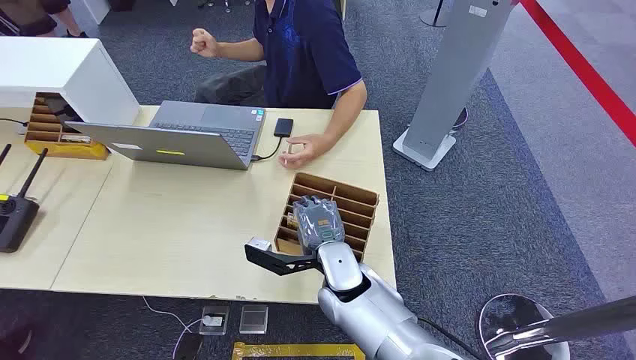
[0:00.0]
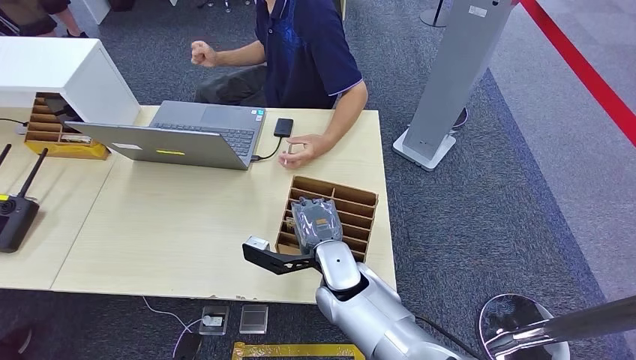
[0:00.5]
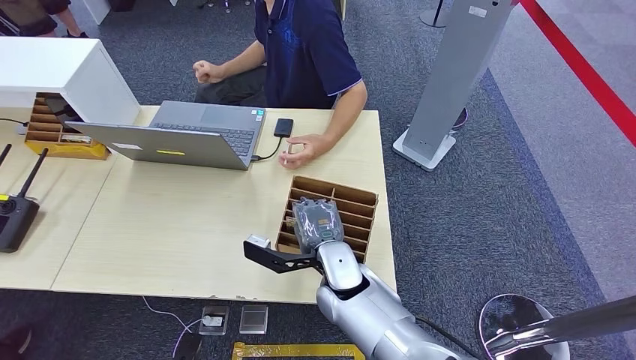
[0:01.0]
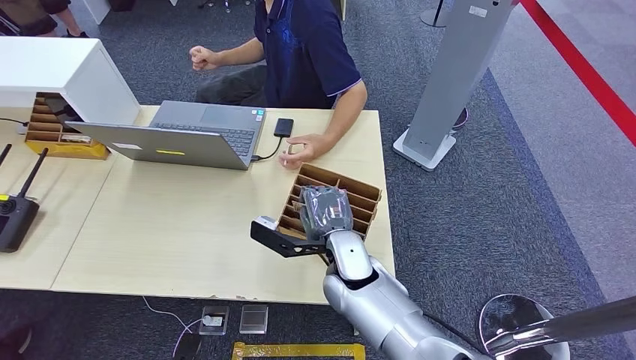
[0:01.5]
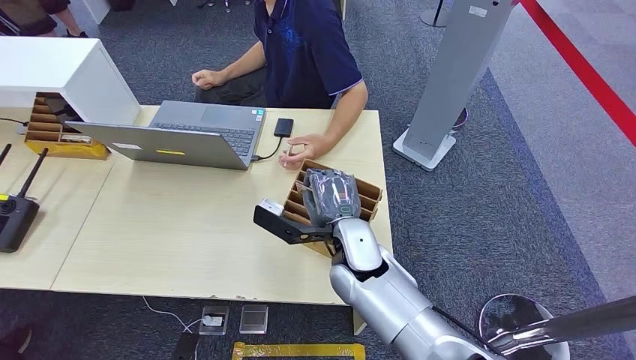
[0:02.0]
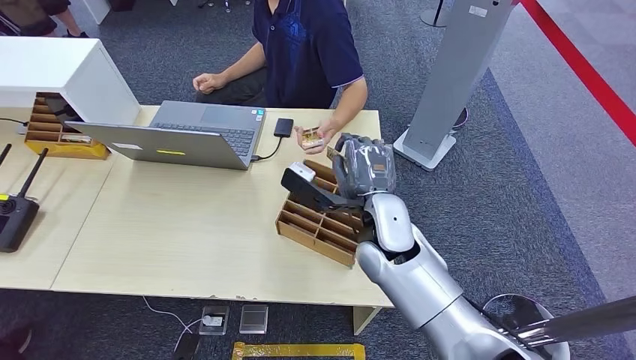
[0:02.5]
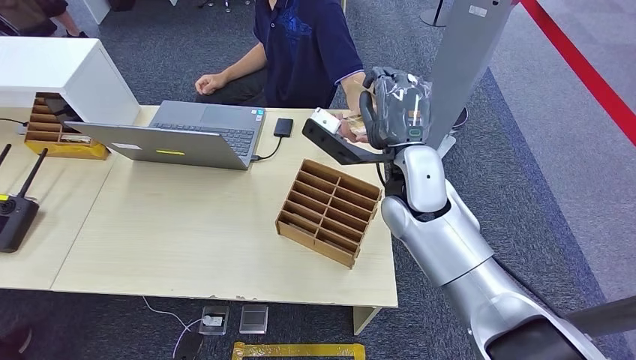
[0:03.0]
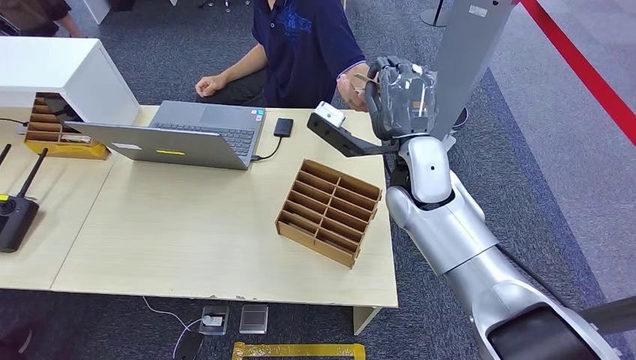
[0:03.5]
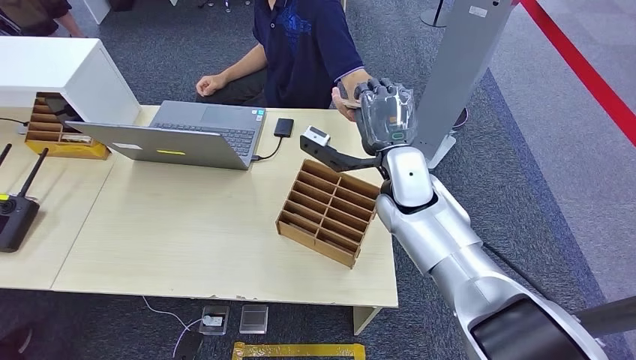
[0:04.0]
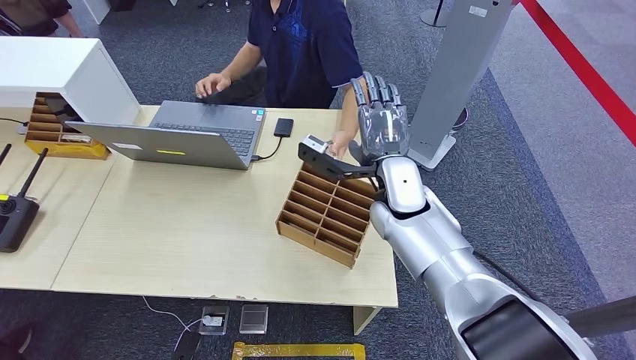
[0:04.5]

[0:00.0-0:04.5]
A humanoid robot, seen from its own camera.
Step, 0:00.0 to 0:01.5: Pick up the room card from the card holder.
Step, 0:03.5 to 0:04.5: Hand the room card to the target.
0:02.0 to 0:04.5: The right hand is displaced forward, upward and to the right by some 15 cm.
